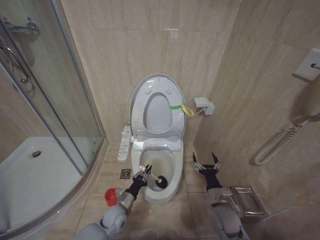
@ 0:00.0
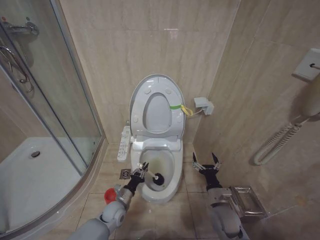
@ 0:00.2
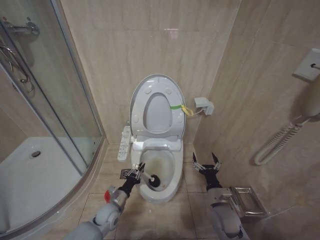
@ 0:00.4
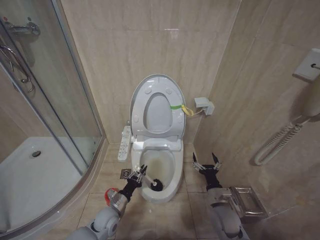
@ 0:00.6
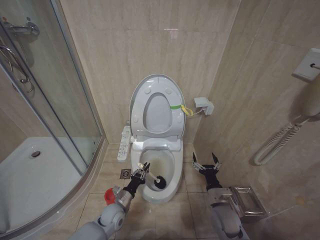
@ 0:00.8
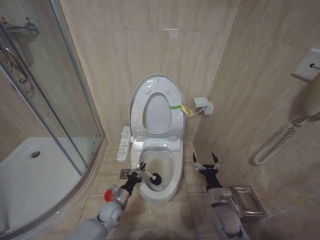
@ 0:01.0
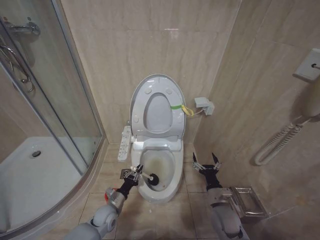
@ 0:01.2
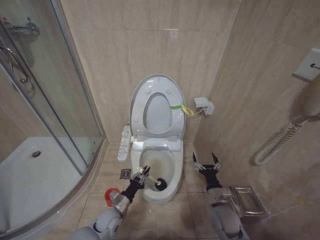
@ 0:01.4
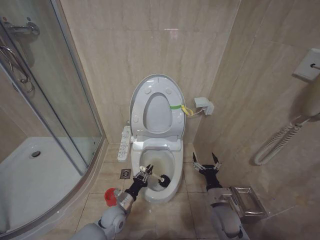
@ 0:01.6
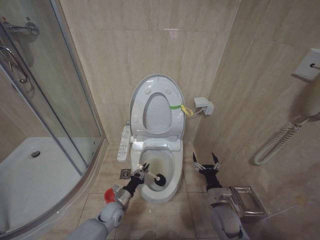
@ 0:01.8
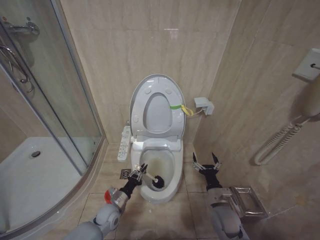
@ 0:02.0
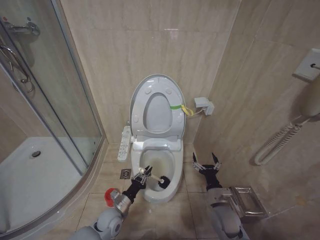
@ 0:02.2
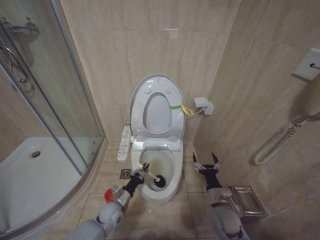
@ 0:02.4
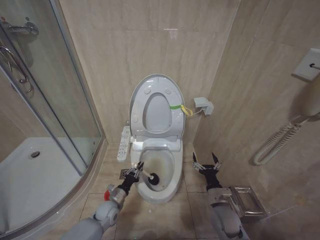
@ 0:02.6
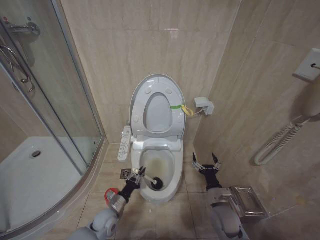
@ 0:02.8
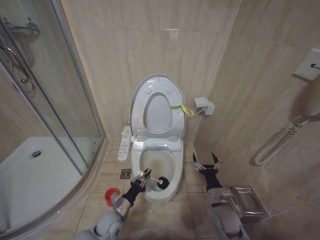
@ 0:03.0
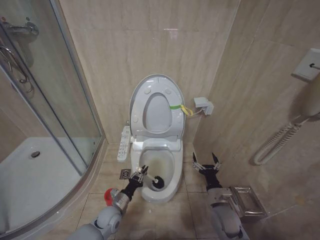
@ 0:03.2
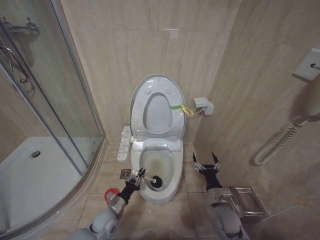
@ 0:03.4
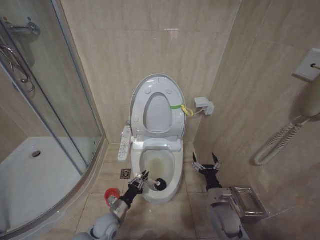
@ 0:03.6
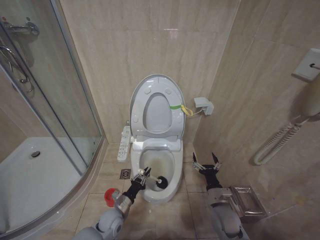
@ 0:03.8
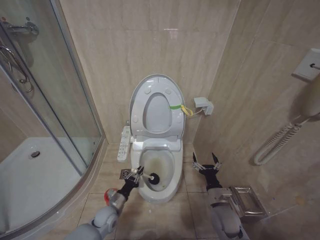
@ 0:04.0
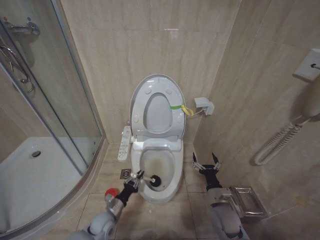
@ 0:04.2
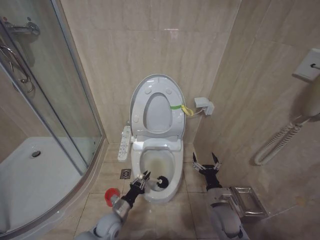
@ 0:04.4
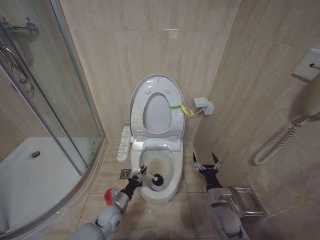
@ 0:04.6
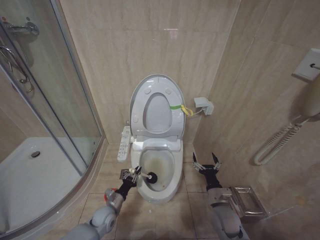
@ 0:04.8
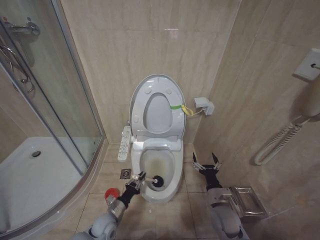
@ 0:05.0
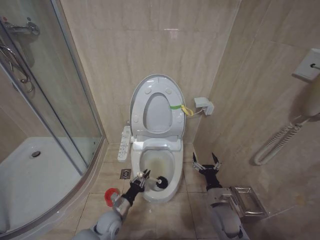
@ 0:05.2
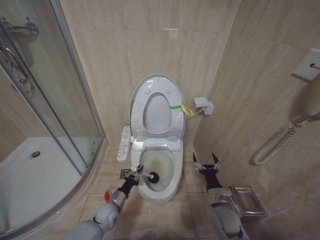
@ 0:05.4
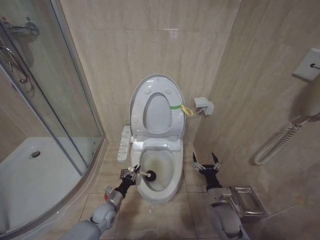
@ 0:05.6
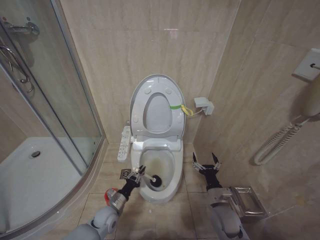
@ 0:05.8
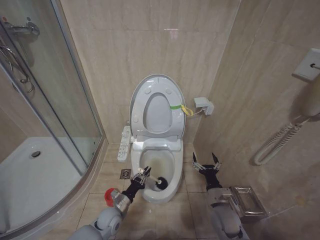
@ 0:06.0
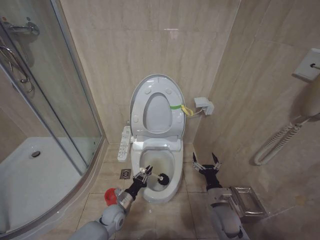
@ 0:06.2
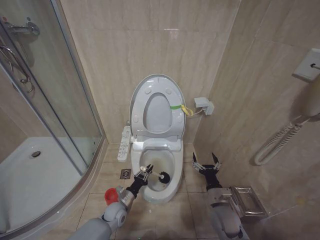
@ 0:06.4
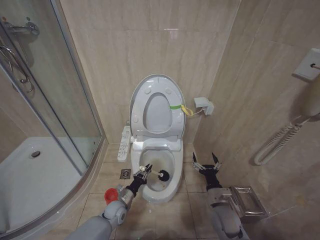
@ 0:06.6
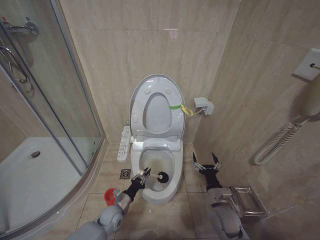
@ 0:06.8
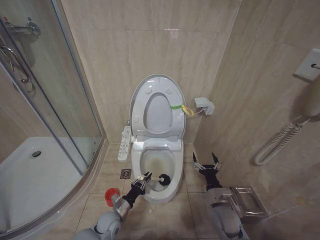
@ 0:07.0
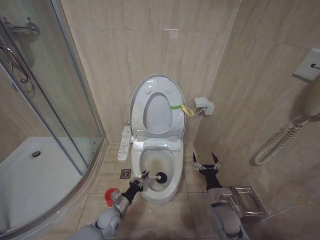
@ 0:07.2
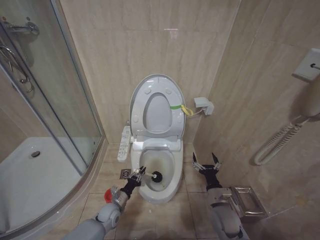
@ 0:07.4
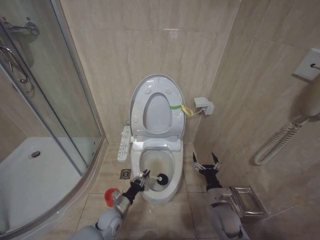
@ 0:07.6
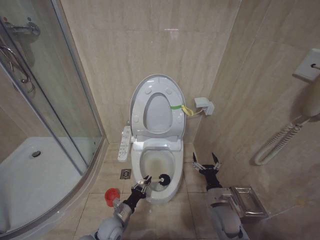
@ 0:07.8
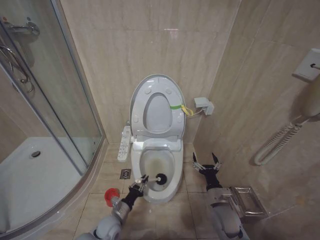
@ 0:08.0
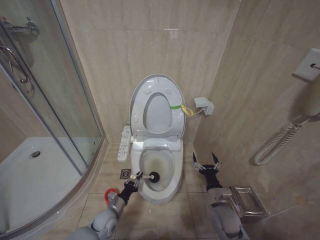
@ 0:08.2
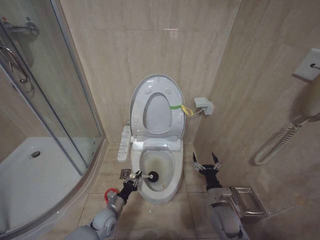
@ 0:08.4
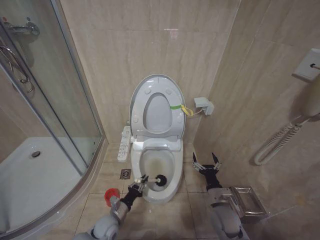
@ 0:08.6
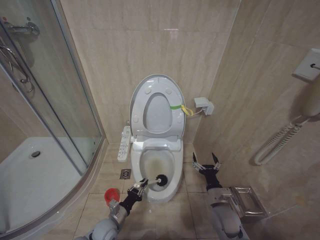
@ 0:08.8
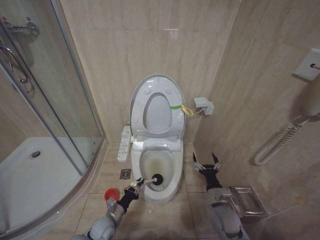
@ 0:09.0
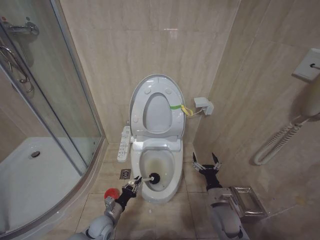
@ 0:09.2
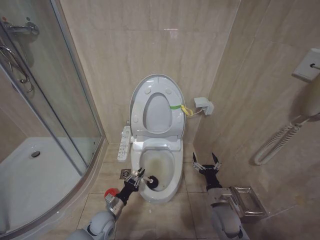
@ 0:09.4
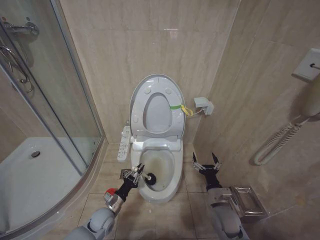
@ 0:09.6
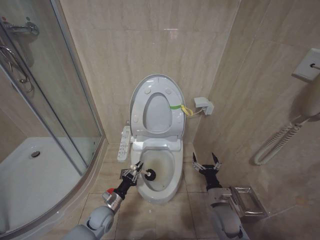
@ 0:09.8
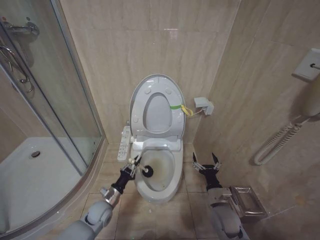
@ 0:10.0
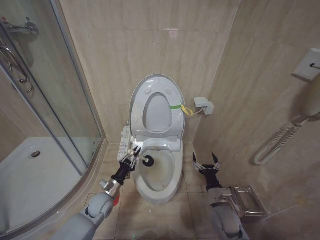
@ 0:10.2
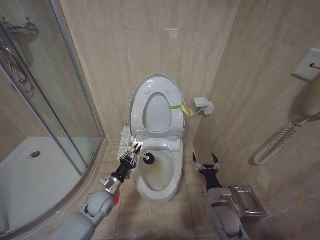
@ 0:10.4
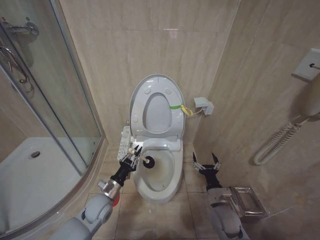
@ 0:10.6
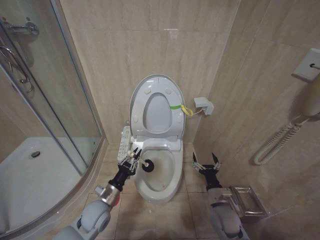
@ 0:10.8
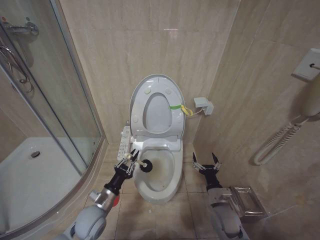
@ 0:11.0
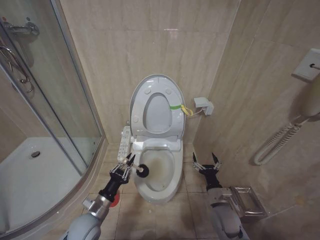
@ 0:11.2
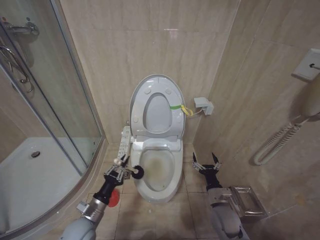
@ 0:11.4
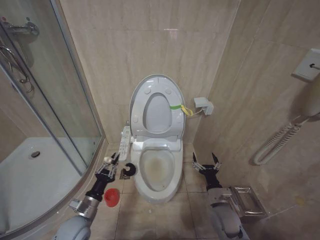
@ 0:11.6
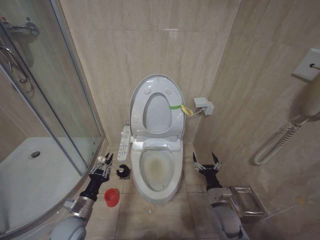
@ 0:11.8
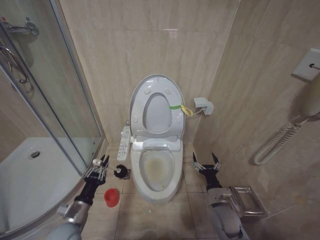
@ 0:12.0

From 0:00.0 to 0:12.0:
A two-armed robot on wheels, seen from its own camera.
Task of the whole recording: Open the toilet lid, clean the toilet bowl with a toilet brush, close the toilet lid, and flush.
From 0:01.6 to 0:03.0: The grippers stay close to where they were, moving slightly.
From 0:04.4 to 0:06.0: The left gripper moves forward and backward over approximately 5 cm, changing direction 2 times.
From 0:07.6 to 0:09.0: The left gripper shifts by some 5 cm.
From 0:09.0 to 0:10.4: The left gripper shifts roughly 10 cm upward and forward.
From 0:10.4 to 0:12.0: The left gripper heads backward and to the left, covering some 15 cm.

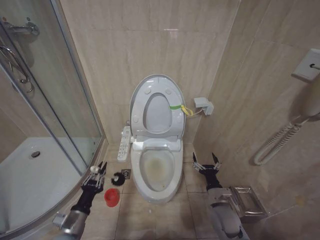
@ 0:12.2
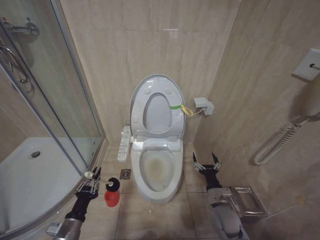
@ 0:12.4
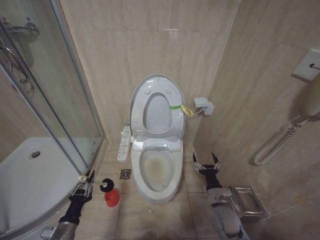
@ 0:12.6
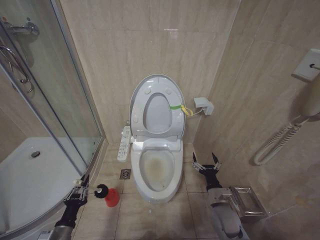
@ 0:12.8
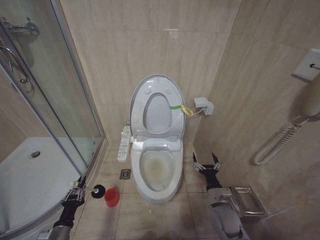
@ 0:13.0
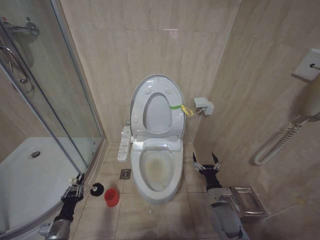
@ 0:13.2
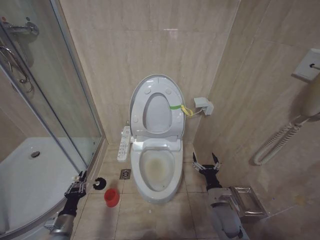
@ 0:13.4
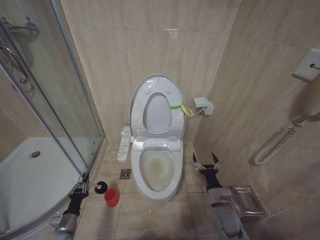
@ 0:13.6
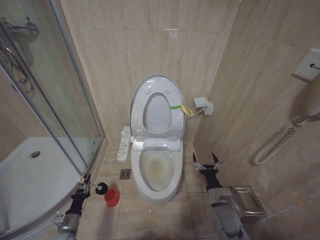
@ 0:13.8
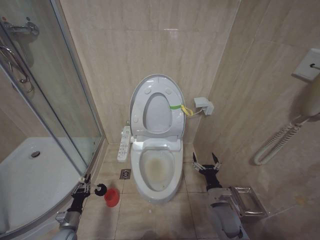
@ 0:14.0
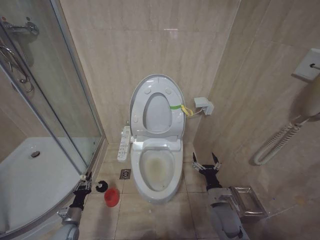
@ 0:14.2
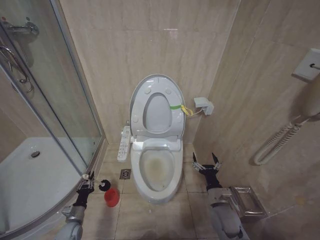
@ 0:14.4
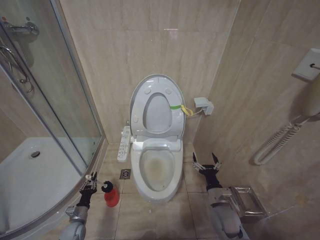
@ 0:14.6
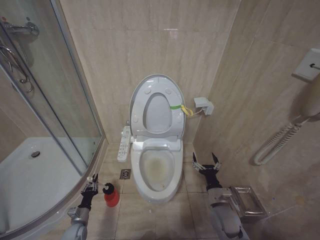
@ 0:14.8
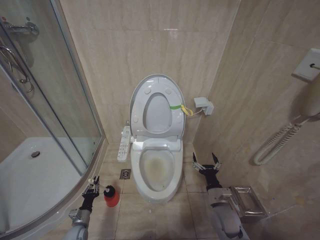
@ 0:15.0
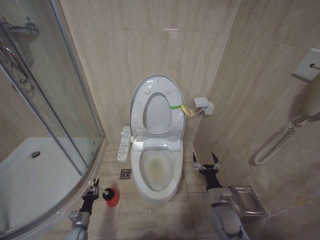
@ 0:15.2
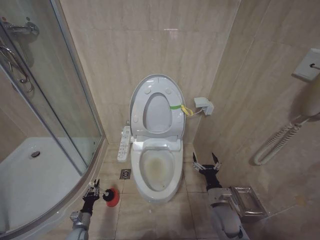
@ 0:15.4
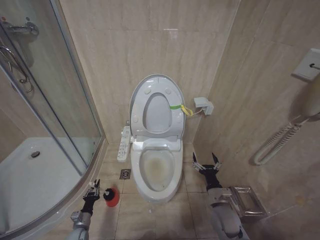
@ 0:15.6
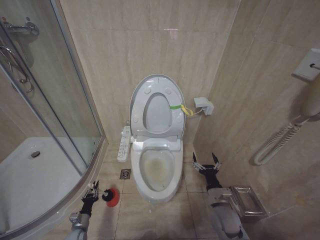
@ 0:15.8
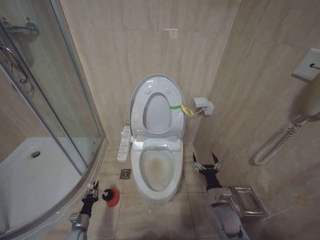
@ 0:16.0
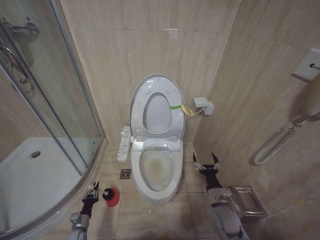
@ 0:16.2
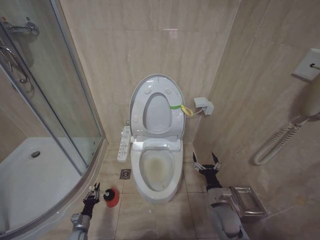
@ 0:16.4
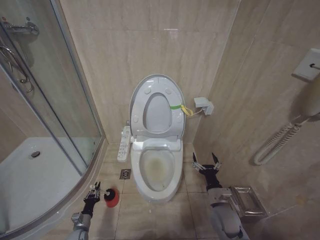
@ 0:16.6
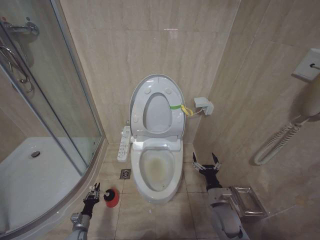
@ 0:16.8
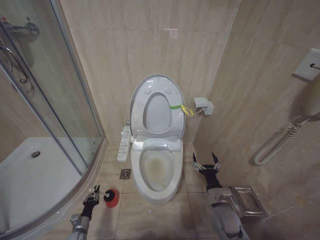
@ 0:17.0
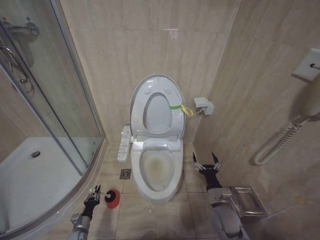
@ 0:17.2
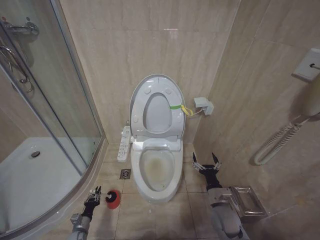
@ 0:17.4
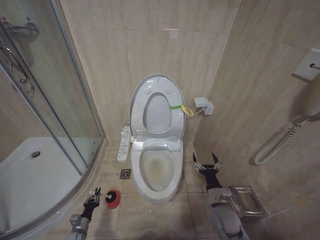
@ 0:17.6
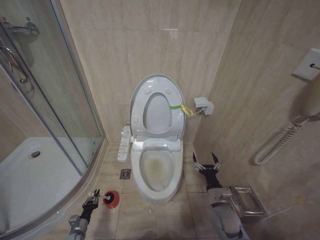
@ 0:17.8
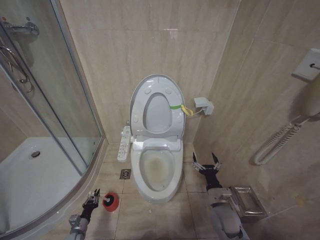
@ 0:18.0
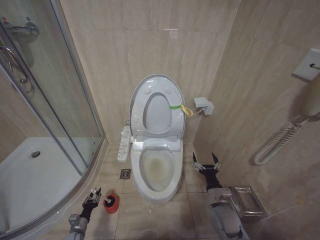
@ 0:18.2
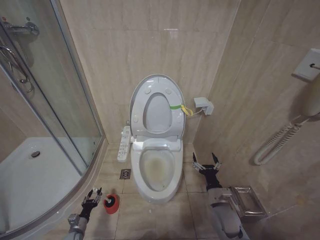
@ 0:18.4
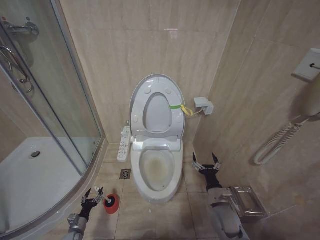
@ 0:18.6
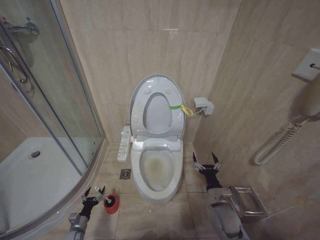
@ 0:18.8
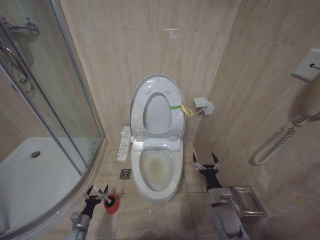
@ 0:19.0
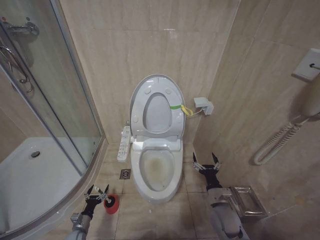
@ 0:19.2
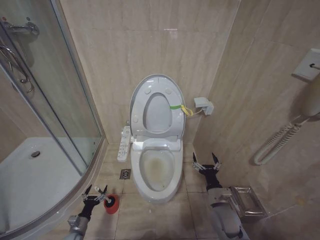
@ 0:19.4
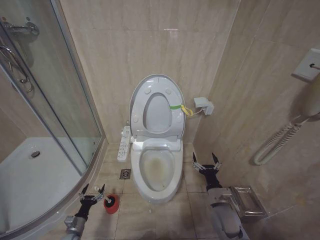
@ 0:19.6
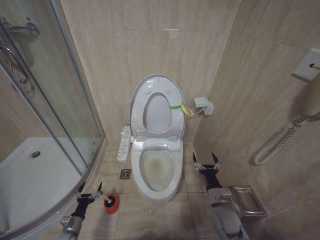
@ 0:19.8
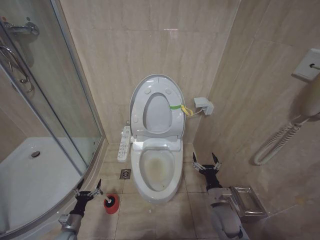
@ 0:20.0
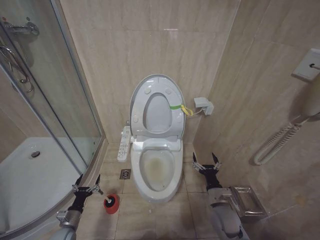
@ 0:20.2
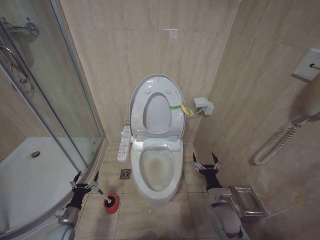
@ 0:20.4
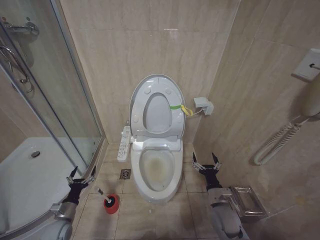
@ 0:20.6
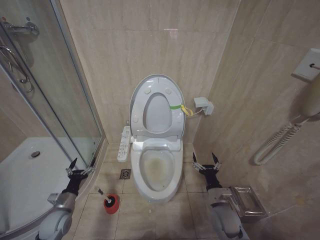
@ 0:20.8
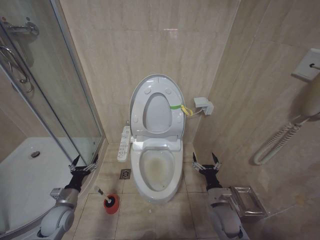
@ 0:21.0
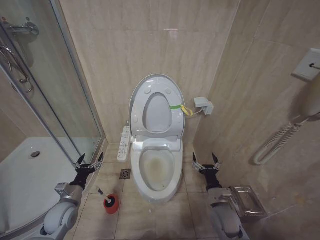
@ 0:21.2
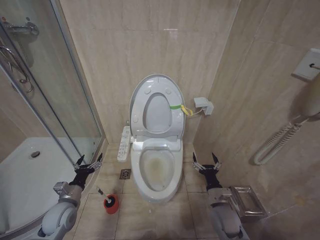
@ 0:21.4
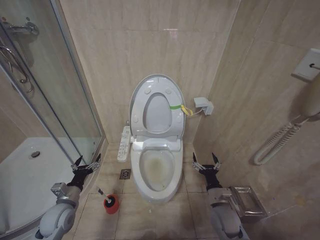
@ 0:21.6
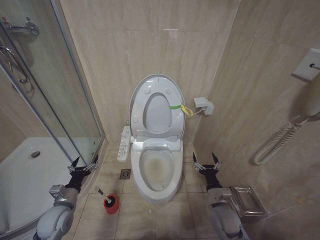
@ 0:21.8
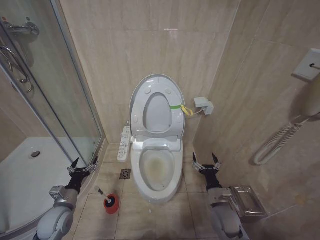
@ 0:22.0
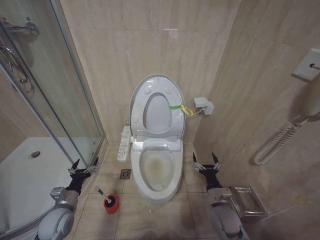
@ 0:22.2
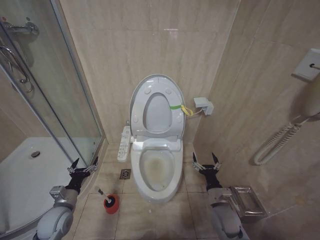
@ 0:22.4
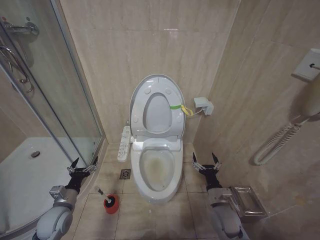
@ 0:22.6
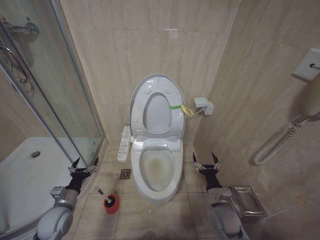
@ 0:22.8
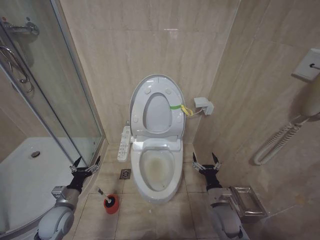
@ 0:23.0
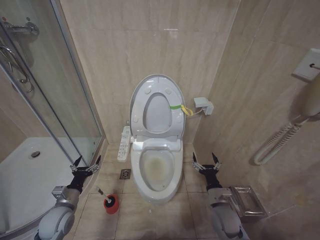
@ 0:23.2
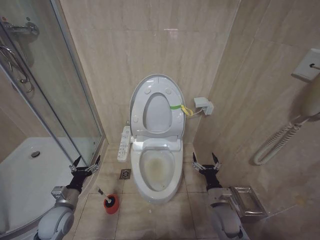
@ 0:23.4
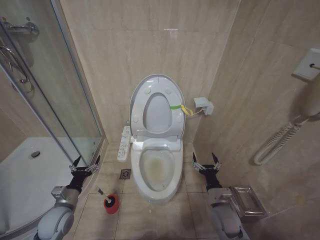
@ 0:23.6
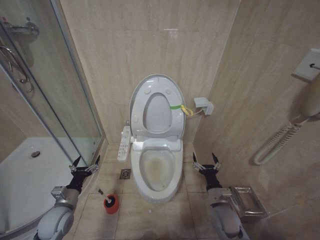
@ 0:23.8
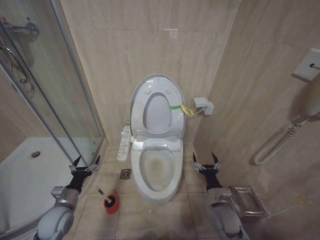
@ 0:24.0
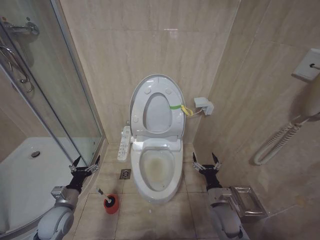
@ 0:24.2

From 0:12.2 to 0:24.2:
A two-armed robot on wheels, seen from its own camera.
Task of the whole recording: Open the toilet lid, clean the toilet bowl with a toilet brush, close the toilet lid, and flush.
From 0:12.2 to 0:13.8: The left gripper moves downward and to the left, about 15 cm.
From 0:13.8 to 0:15.2: The left gripper goes approximately 10 cm downward.
From 0:16.6 to 0:18.2: The grippers stay close to where they were, moving slightly.
From 0:18.2 to 0:19.8: The left gripper moves upward, some 5 cm, and opens up.
From 0:19.8 to 0:21.2: The left gripper travels upward by about 20 cm.
From 0:21.2 to 0:22.6: The grippers move only a little.
From 0:22.6 to 0:24.2: Neither gripper changes place.
